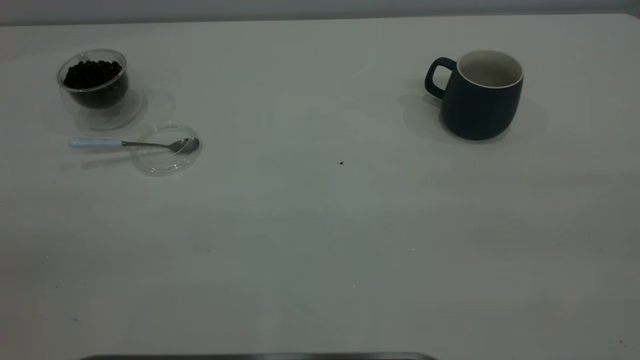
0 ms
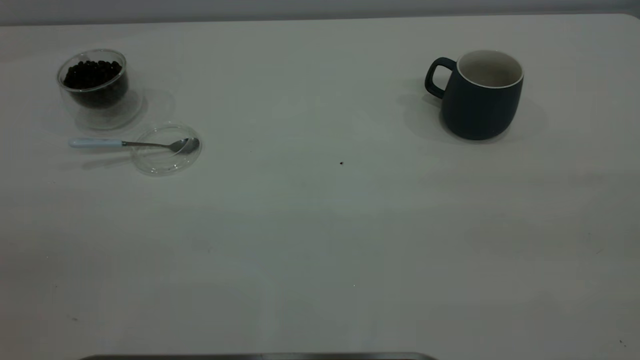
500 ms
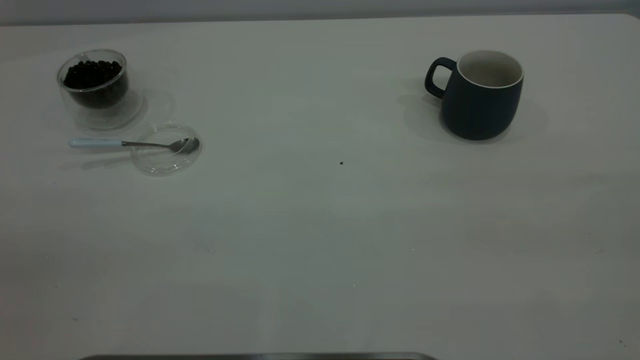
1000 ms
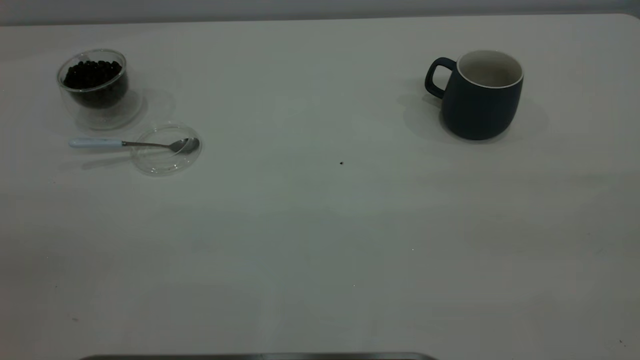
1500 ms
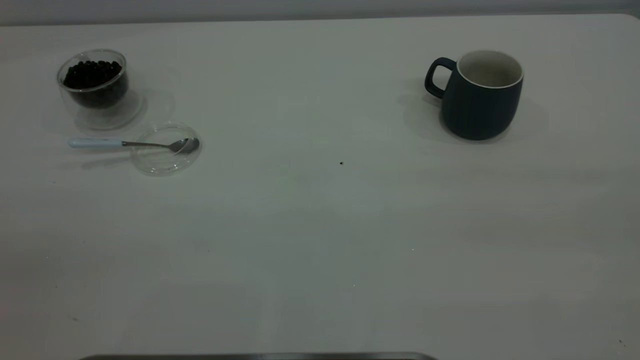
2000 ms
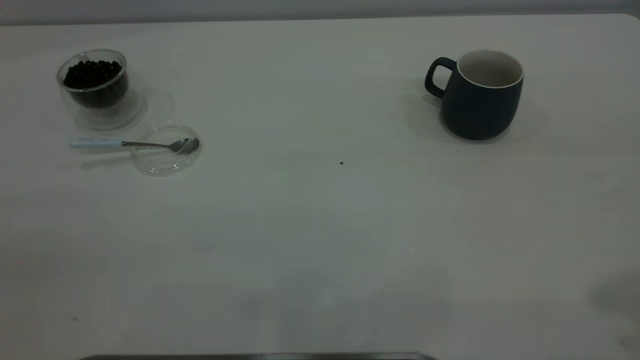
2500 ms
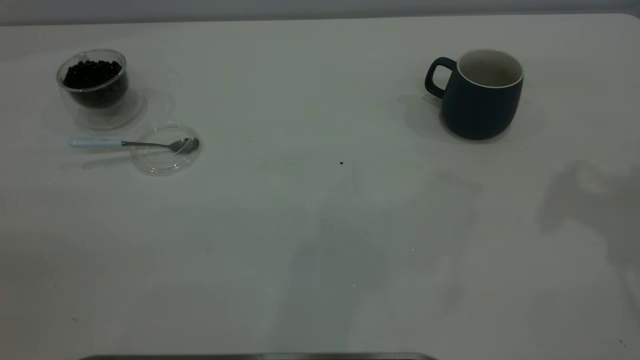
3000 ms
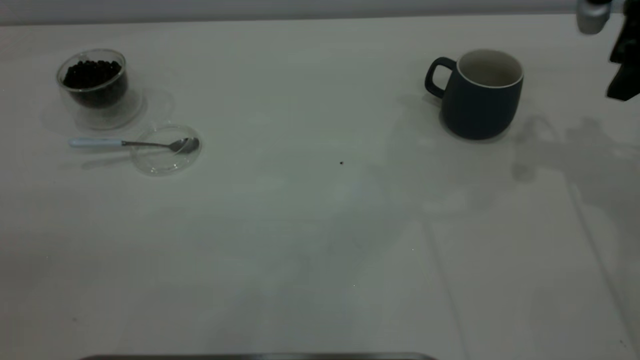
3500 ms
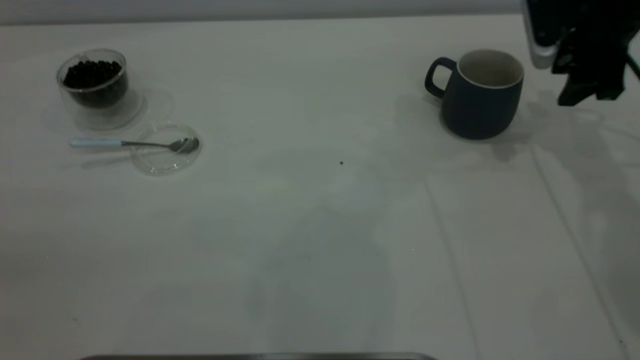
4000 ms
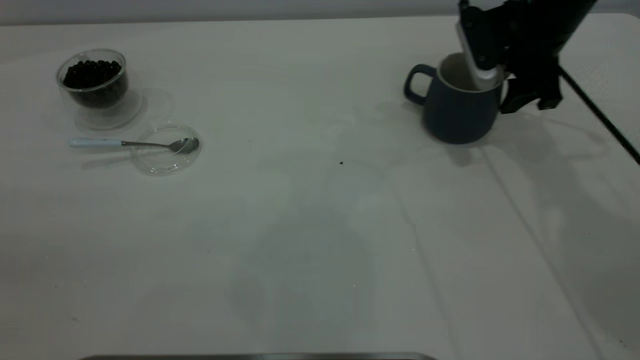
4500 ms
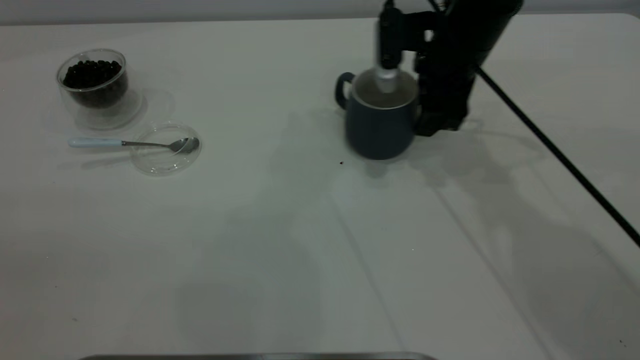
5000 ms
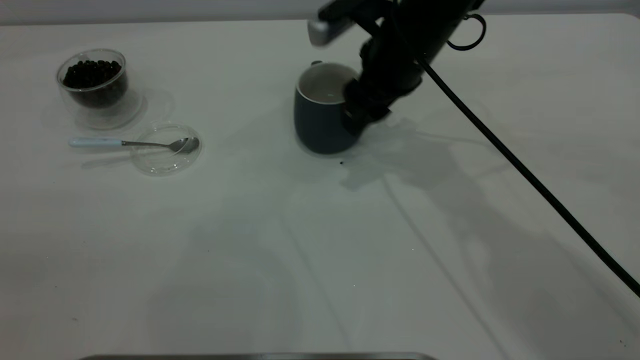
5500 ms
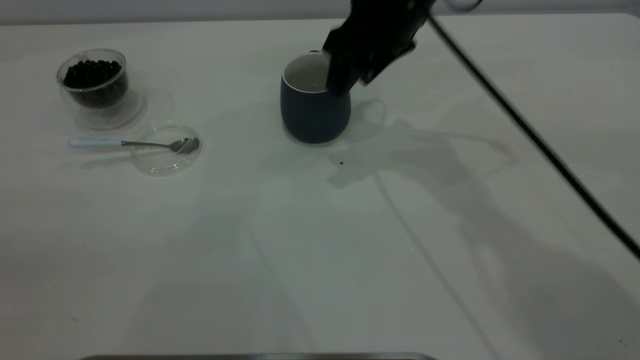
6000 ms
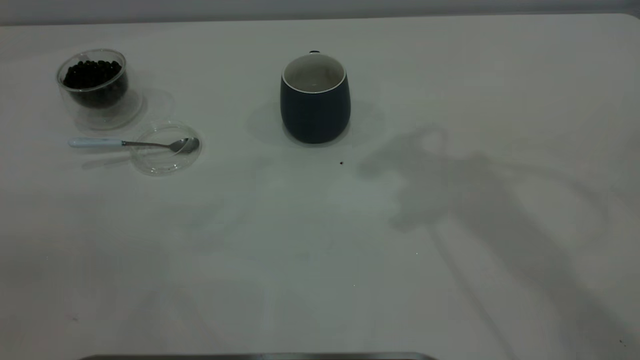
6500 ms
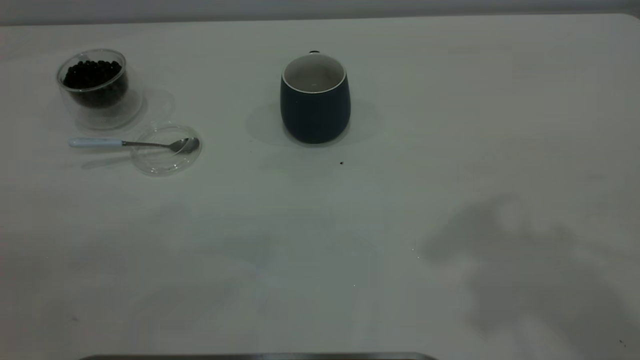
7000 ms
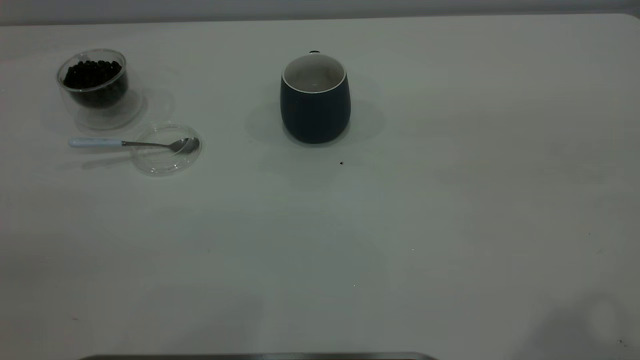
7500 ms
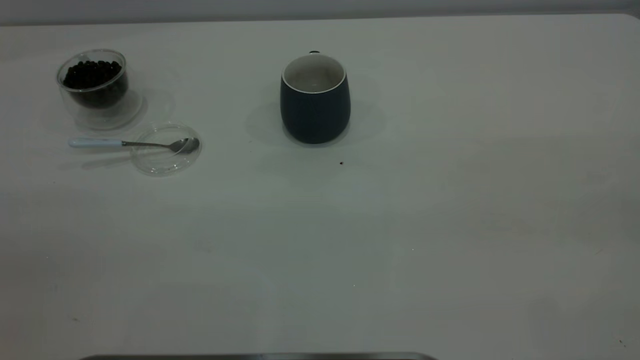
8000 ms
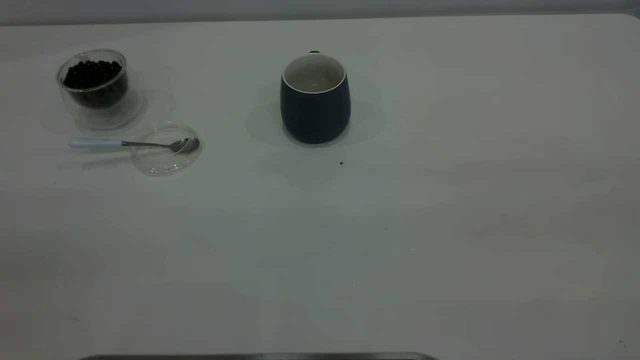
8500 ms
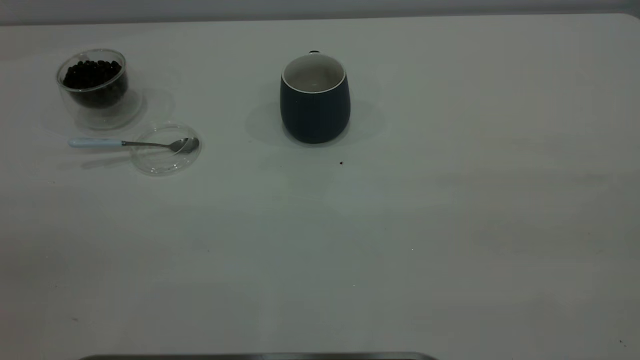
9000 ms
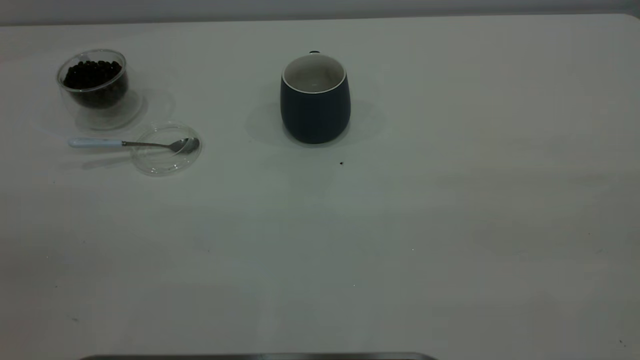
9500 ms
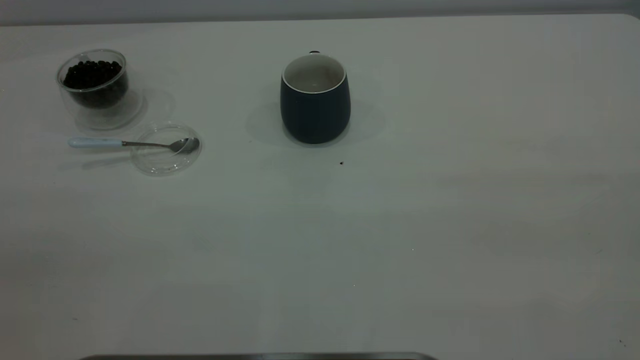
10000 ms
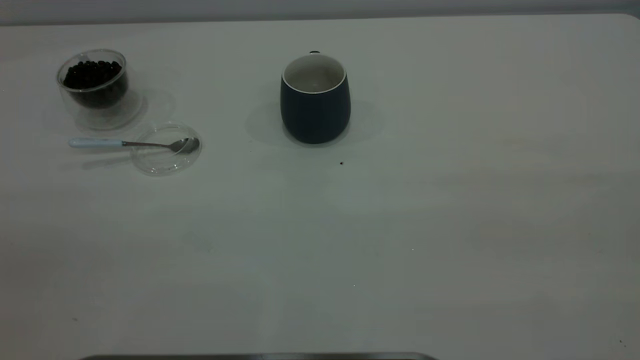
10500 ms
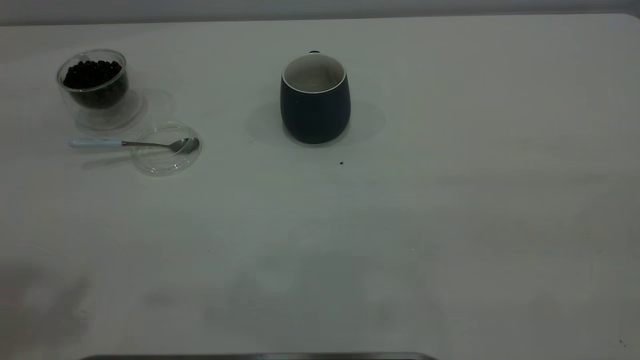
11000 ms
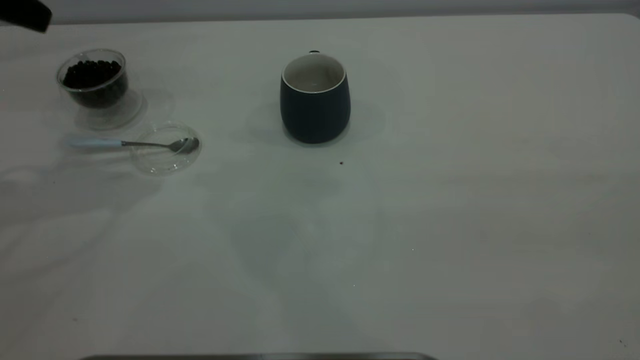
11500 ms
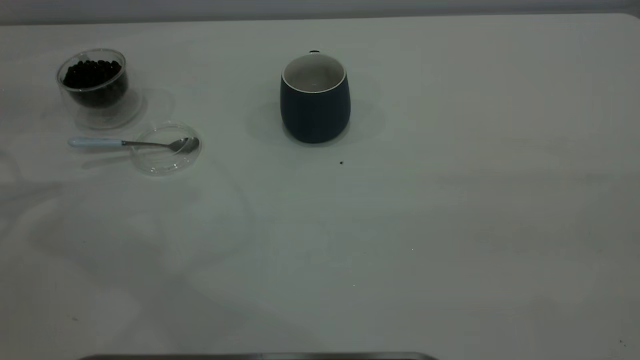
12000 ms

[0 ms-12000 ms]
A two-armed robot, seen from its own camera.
Task of the whole recording: the right gripper place the grey cup in the center of the table, the left gripper take the blue spoon from the cup lid and scoop out the coffee beans from the coffee cup and put them into the grey cup, the left gripper put the spoon back into the cup lid.
Step, 0 ms to 6000 ms: Move the cup to the center of view.
0 ms to 2000 ms: Both grippers stay about where they are.
2000 ms to 4000 ms: The right gripper goes about 50 cm forward and downward.
4000 ms to 6000 ms: The right gripper moves to the left, some 20 cm.
6000 ms to 8000 ms: The right gripper is displaced backward, to the right and upward by about 50 cm.

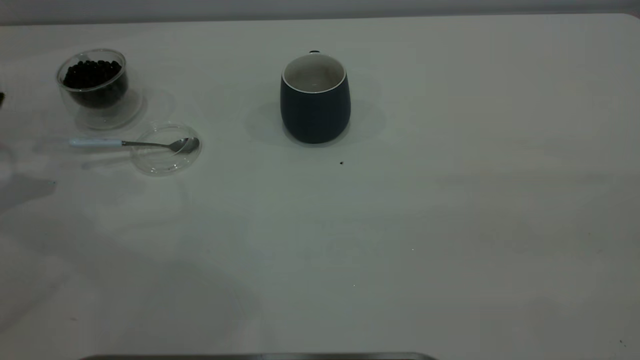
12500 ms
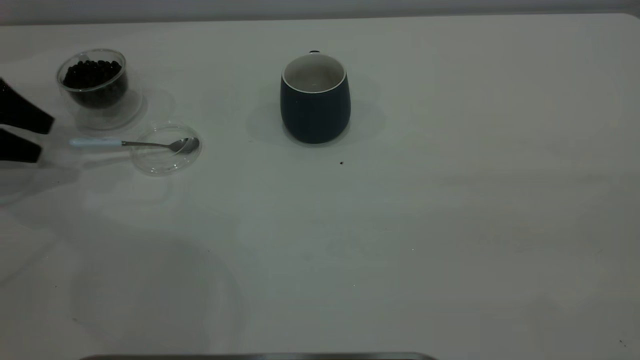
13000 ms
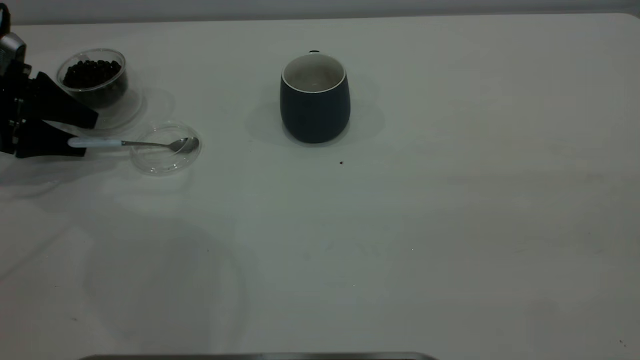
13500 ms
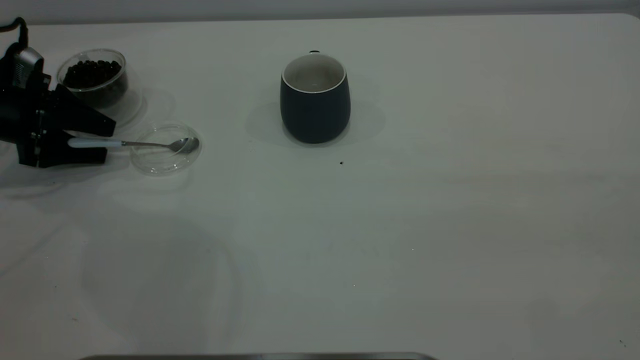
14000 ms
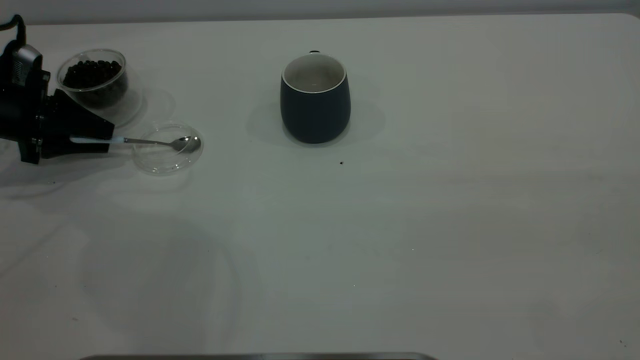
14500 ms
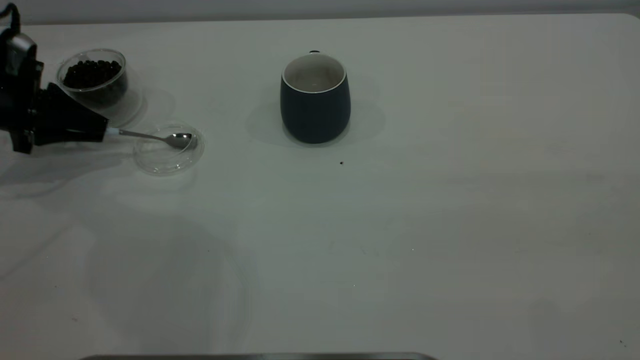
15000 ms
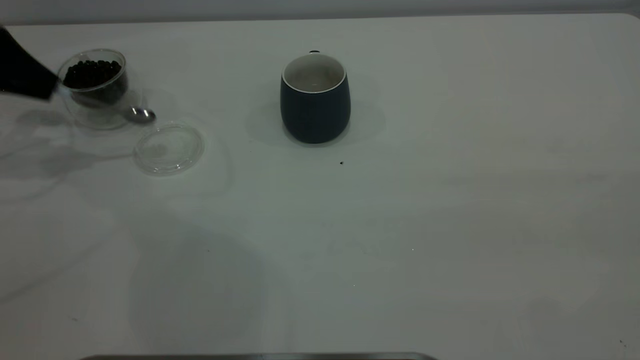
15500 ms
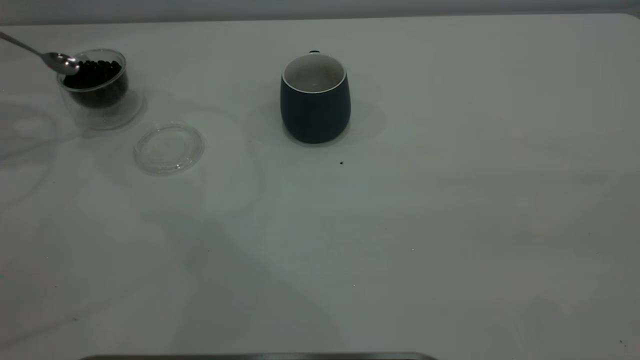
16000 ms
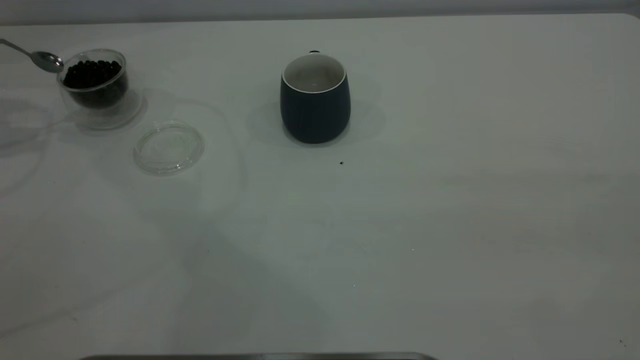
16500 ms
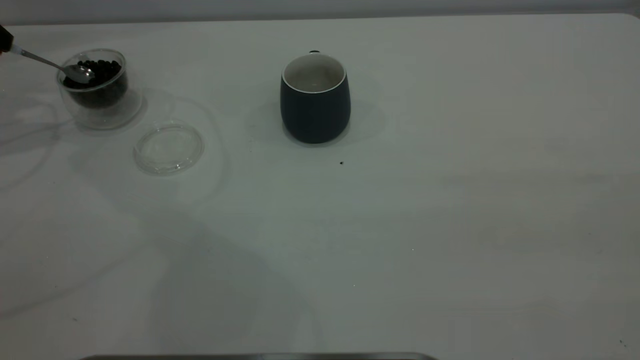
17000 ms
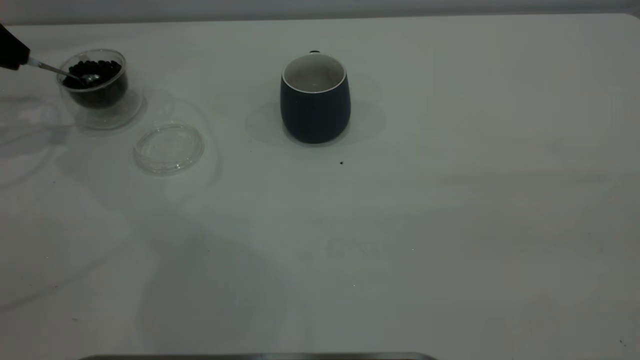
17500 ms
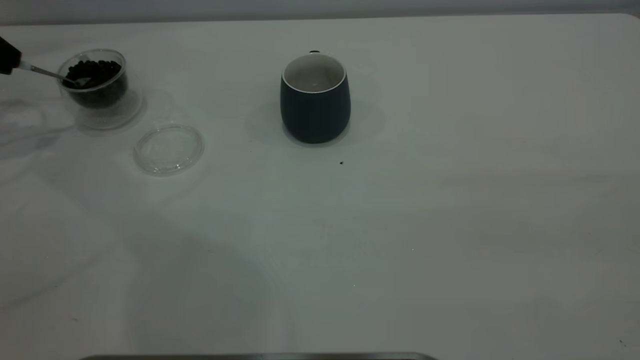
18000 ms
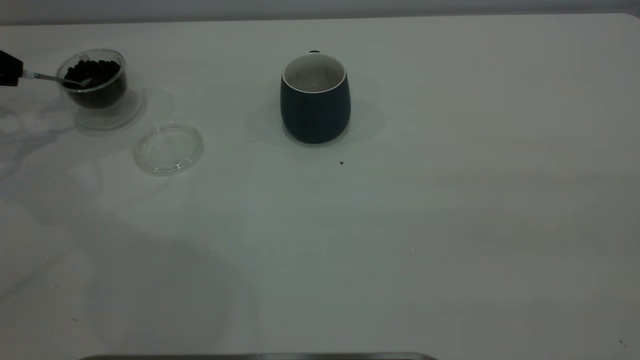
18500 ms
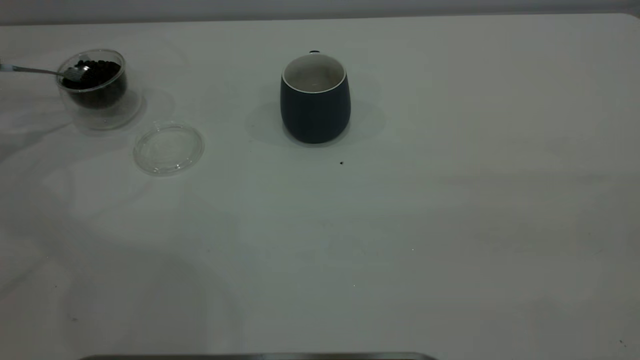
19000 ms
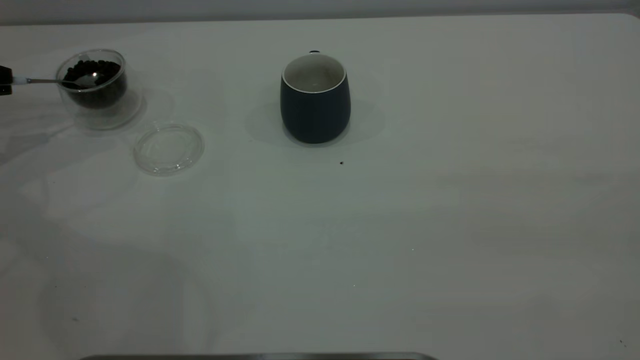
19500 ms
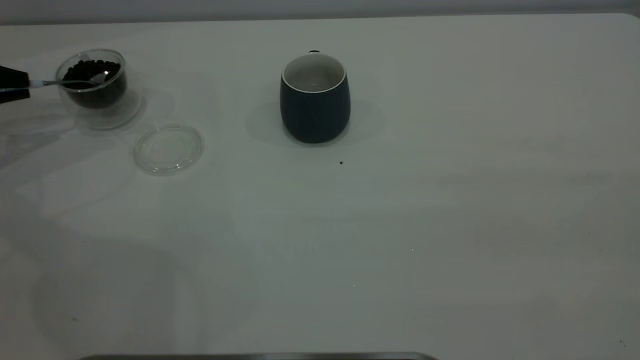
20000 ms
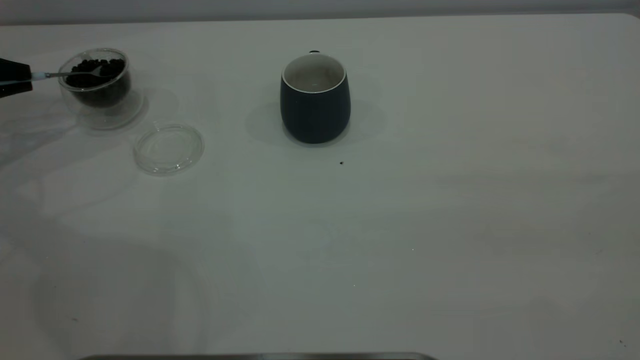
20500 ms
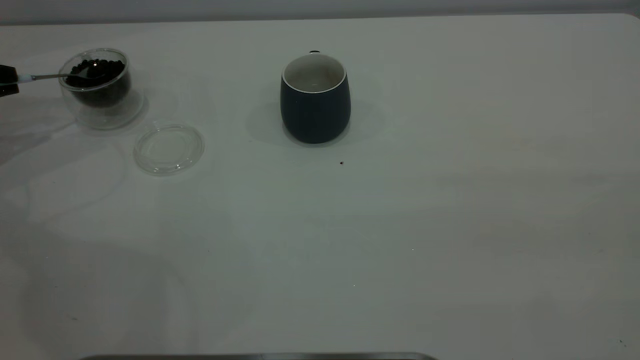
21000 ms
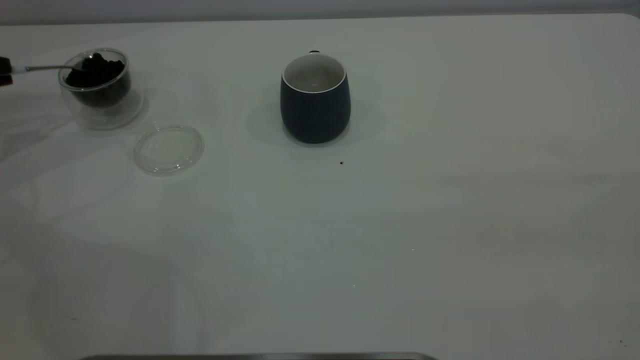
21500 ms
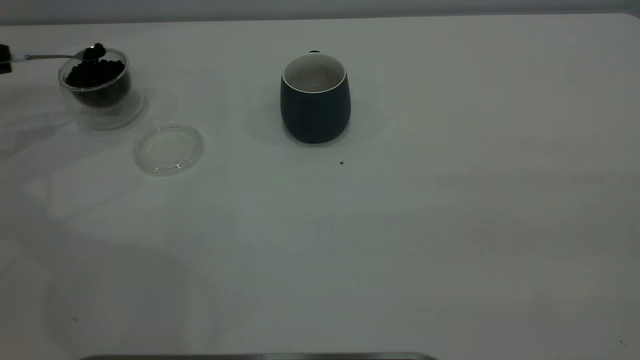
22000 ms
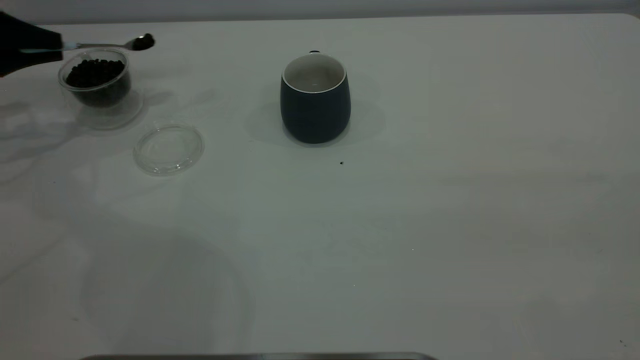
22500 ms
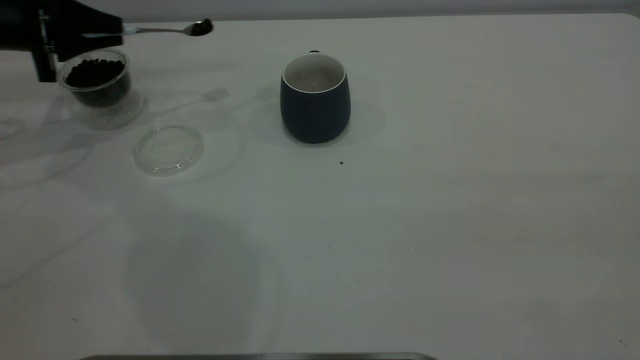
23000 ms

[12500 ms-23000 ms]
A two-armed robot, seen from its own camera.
Task of the whole recording: the right gripper place the grey cup in the center of the table, the left gripper take the blue spoon from the cup lid and scoop out the coffee beans from the coffee cup and put them into the grey cup, the left gripper put the spoon back into the cup lid.
Step, 12500 ms to 15500 ms: Pick up the spoon.
12500 ms to 14500 ms: The left gripper shifts some 10 cm downward and to the right, and closes its fingers.
14500 ms to 16500 ms: The left gripper shifts some 20 cm upward.
19000 ms to 21000 ms: The left gripper travels downward by about 5 cm.
21000 ms to 23000 ms: The left gripper heads to the right, covering about 15 cm.
